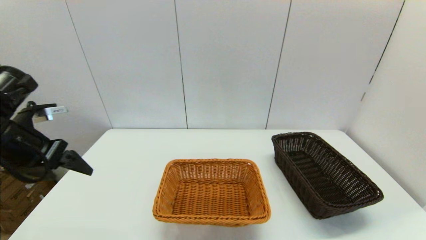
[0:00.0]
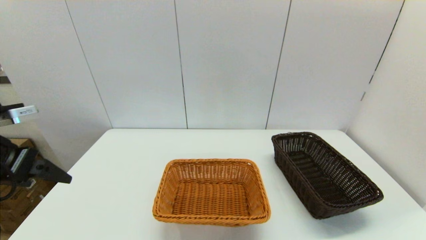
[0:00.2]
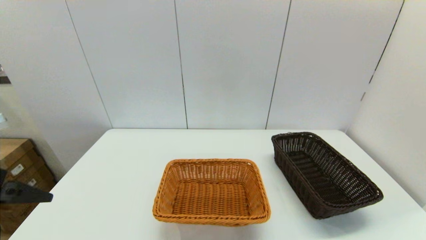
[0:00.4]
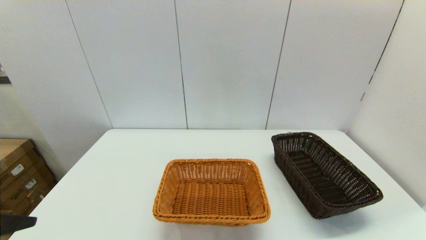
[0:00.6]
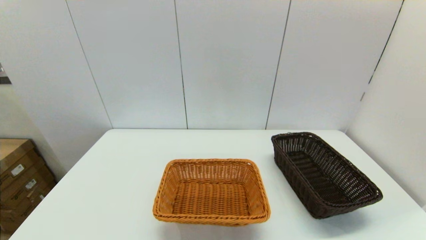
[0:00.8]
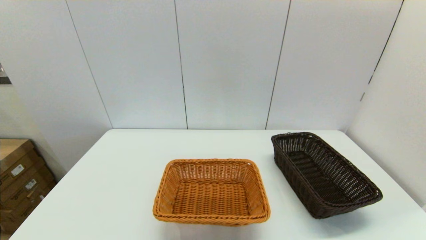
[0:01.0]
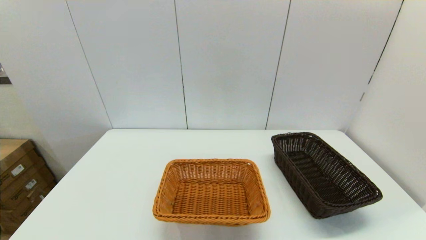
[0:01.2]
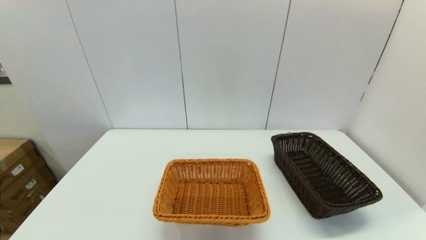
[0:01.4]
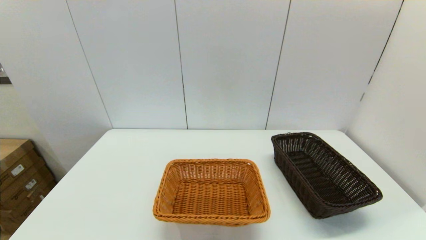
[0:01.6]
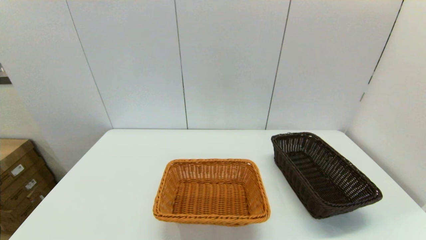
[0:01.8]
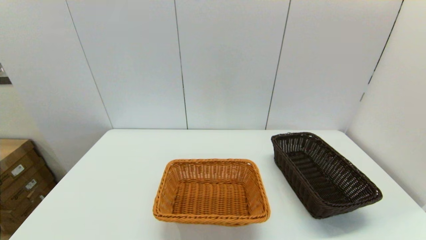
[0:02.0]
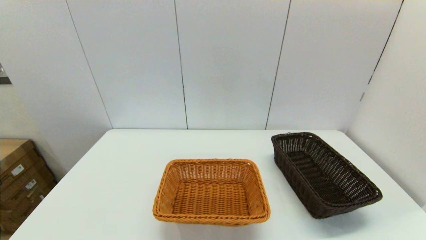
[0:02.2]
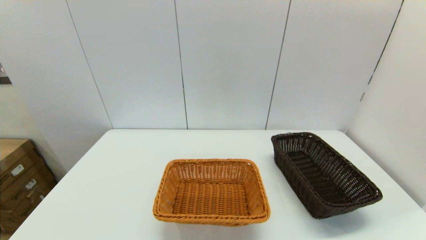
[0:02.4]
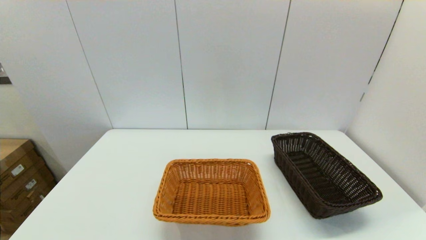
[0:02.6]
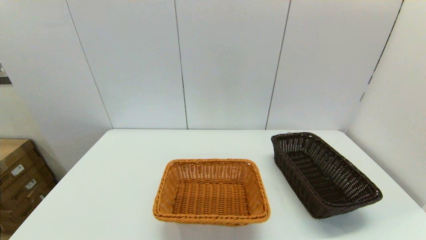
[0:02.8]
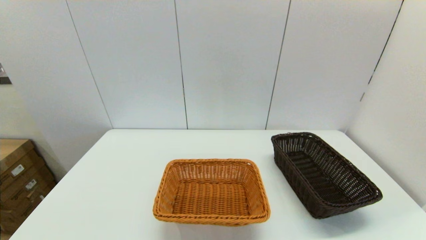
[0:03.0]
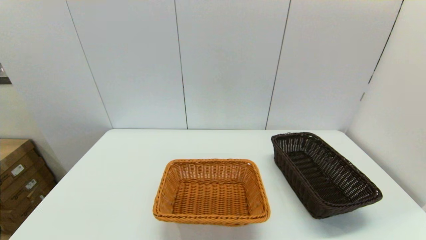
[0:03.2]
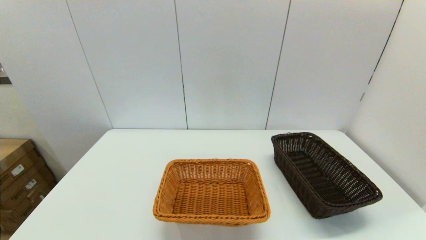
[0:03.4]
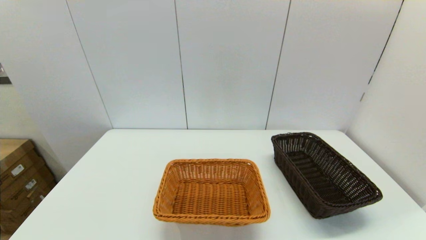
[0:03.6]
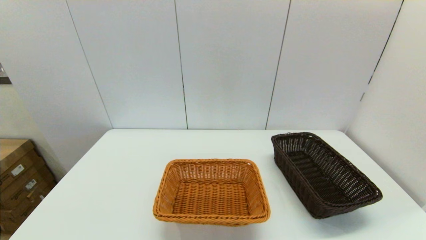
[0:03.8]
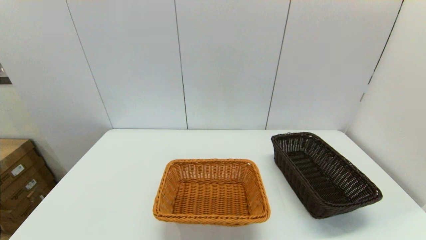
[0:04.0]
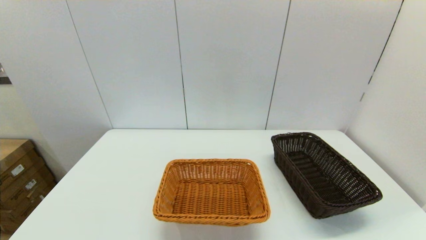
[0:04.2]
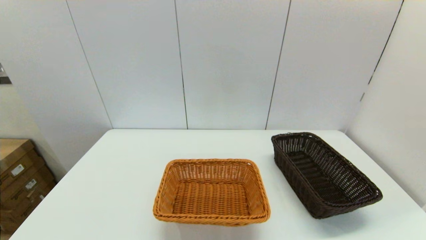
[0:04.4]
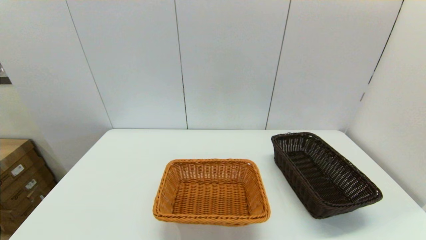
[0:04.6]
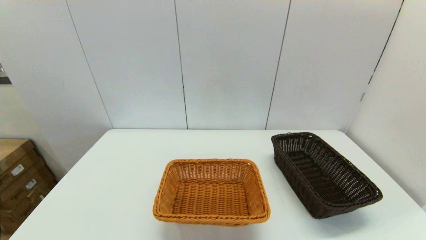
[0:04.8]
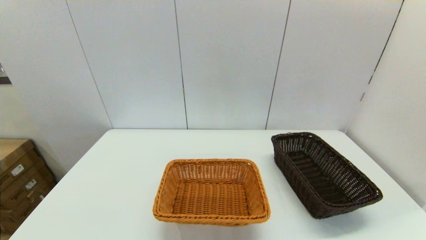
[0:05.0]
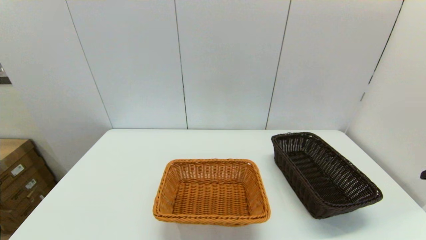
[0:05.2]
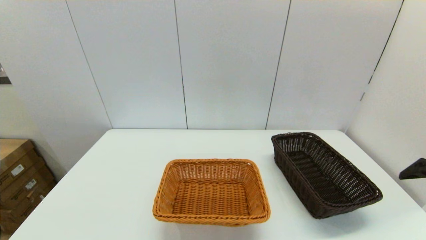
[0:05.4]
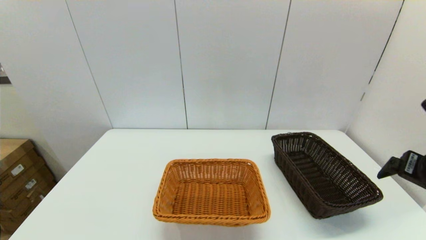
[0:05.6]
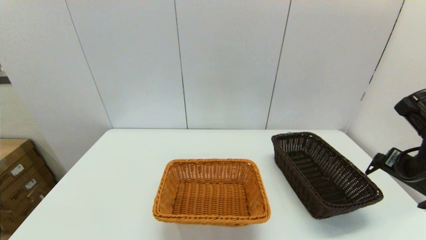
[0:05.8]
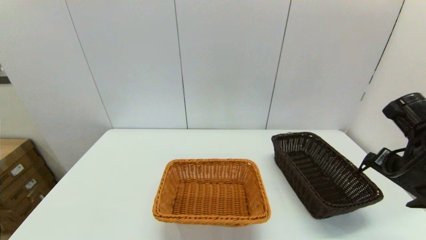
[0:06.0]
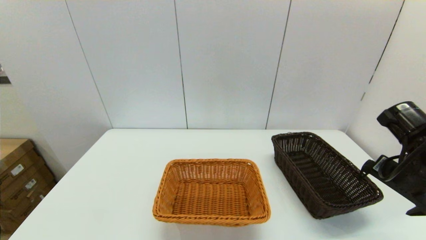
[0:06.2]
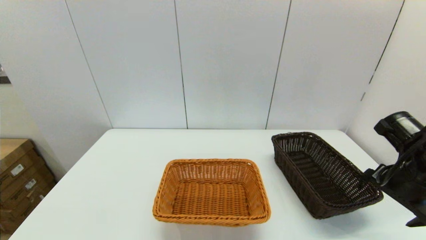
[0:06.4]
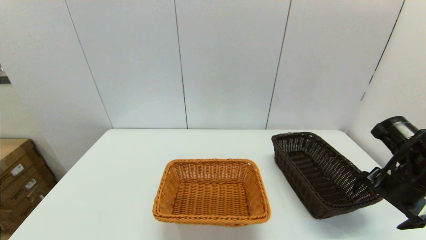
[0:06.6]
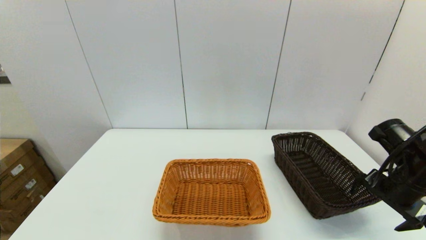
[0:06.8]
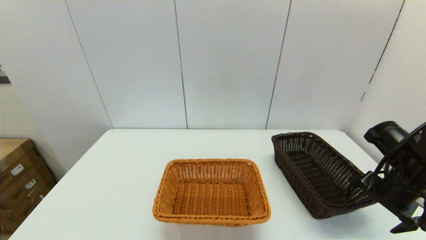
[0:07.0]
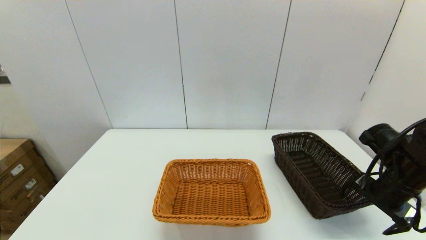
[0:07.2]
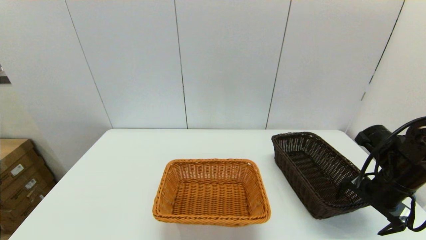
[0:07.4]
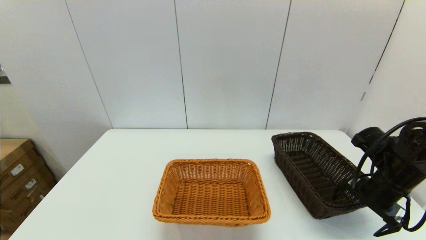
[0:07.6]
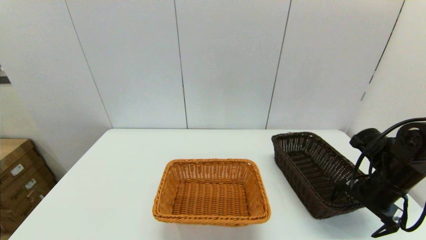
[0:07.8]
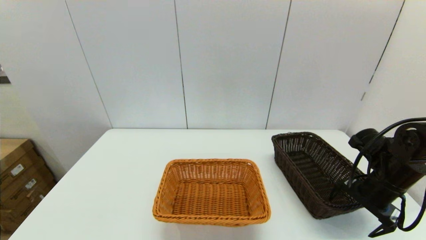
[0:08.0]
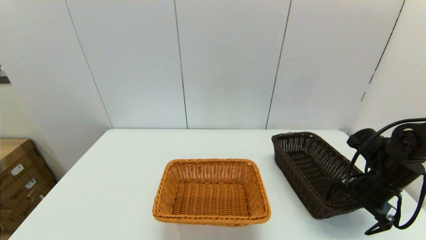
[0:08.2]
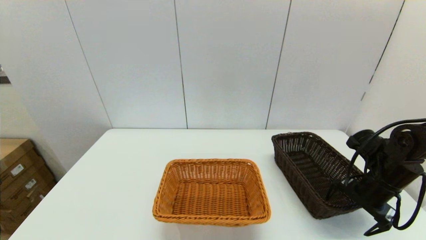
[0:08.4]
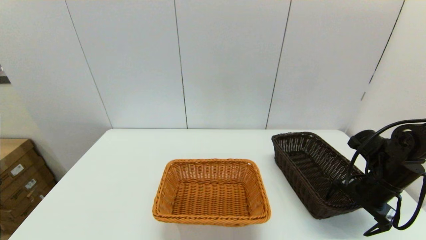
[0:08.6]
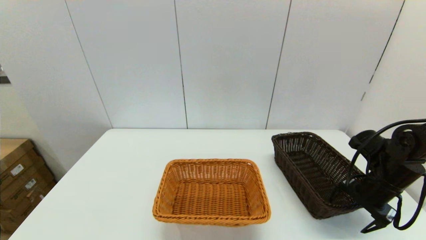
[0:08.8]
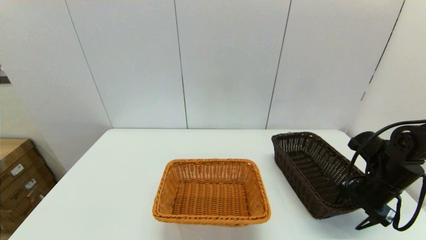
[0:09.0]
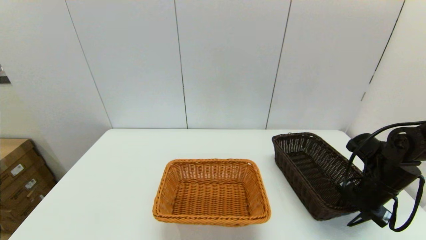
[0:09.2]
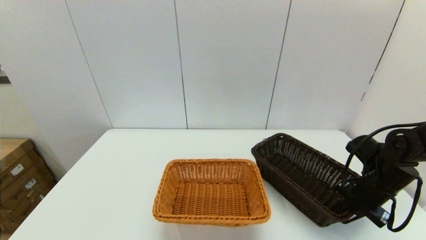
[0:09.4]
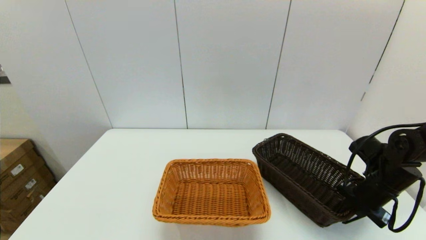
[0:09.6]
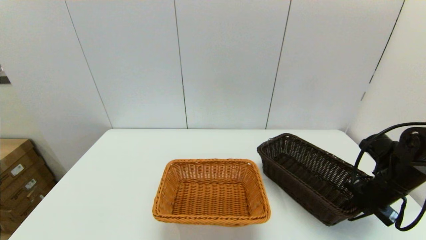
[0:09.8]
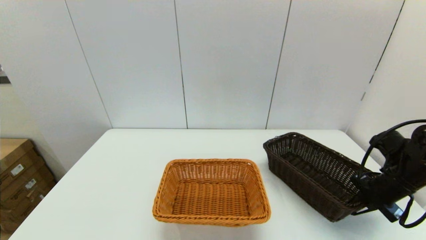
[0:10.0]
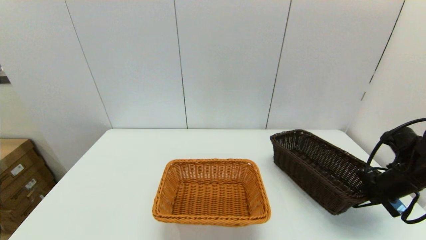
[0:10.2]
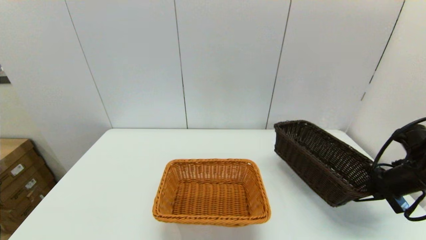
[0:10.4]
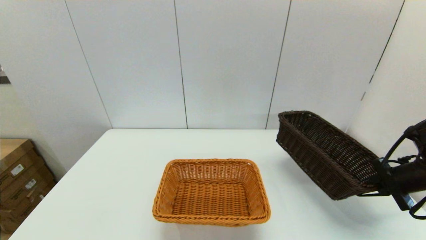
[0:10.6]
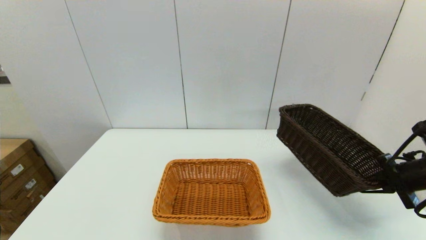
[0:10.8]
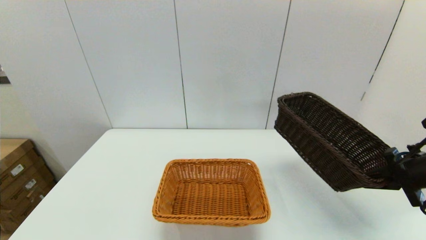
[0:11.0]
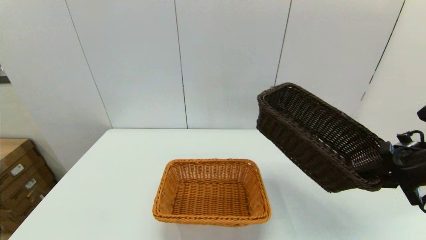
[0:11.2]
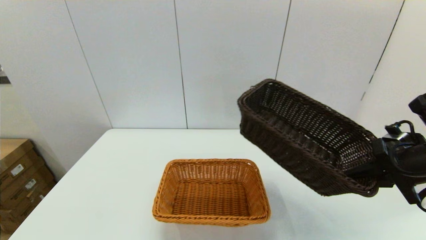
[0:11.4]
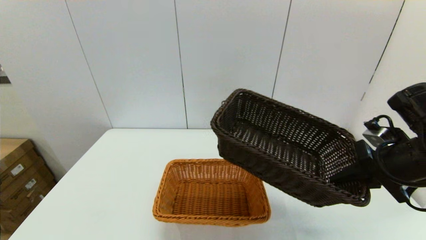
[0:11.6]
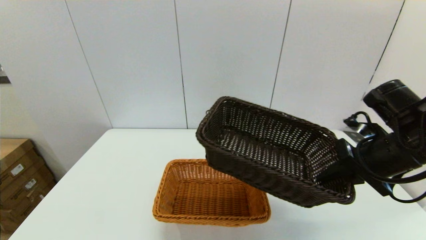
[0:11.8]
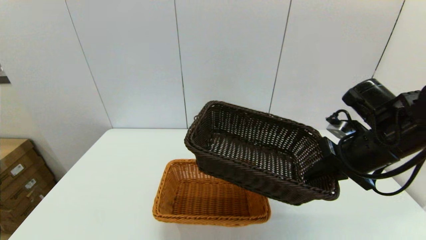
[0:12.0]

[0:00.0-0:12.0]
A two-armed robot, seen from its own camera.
Task of the whole recording: stack a basket on top of another basket.
Step, 0:00.0 to 0:09.8: Grasp the dark basket with the right gripper.
0:00.0 to 0:01.6: The left gripper goes some 25 cm backward.
0:04.4 to 0:06.0: The right gripper shifts about 20 cm forward.
0:06.0 to 0:07.6: The right gripper heads downward, covering roughly 10 cm.
0:07.6 to 0:09.0: The right gripper closes up.
0:09.0 to 0:10.4: The right gripper travels to the right by roughly 5 cm, and closes up.
0:10.4 to 0:12.0: The right gripper moves to the left and upward, about 15 cm.

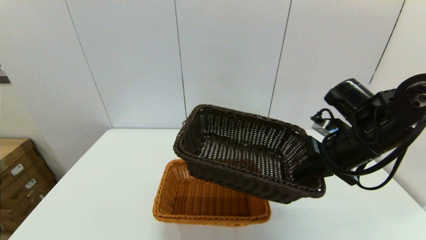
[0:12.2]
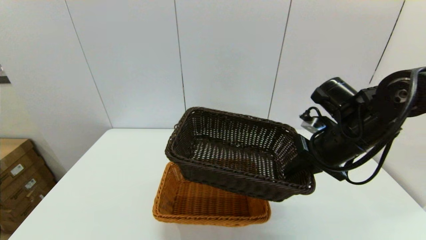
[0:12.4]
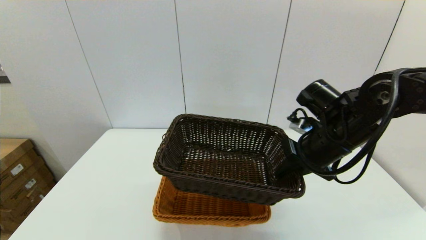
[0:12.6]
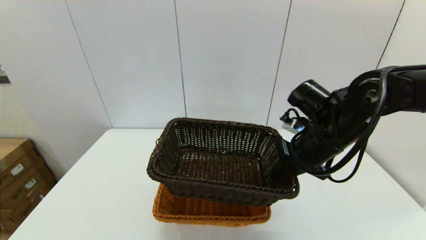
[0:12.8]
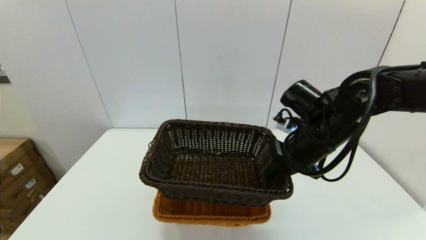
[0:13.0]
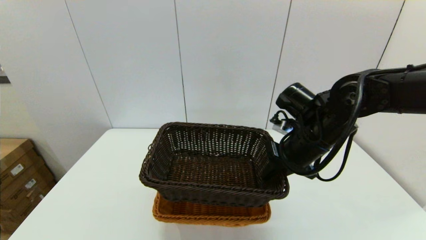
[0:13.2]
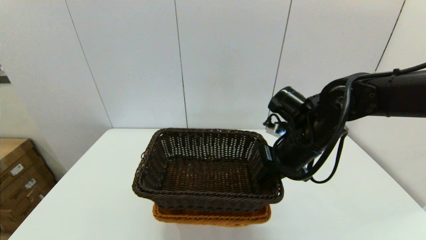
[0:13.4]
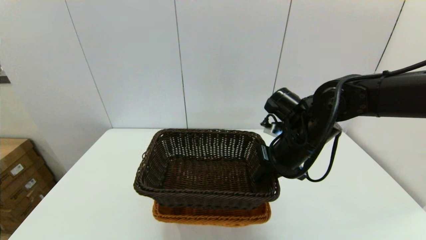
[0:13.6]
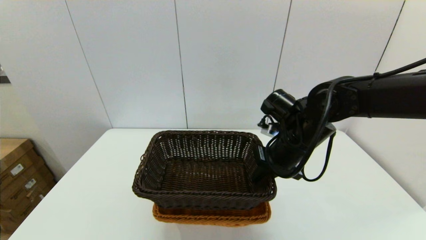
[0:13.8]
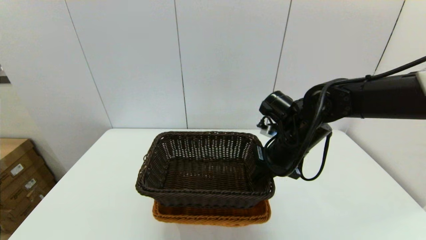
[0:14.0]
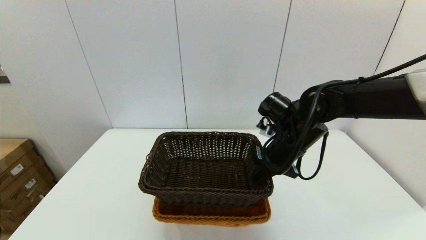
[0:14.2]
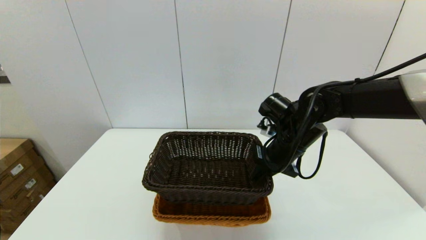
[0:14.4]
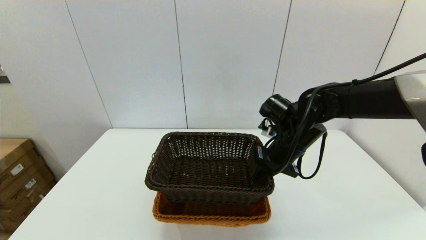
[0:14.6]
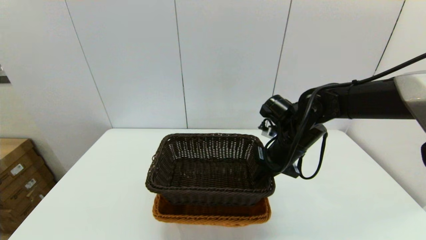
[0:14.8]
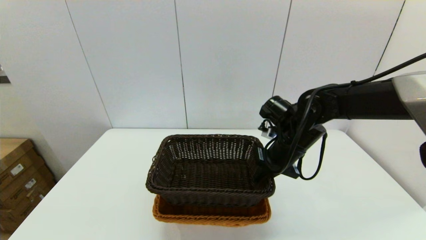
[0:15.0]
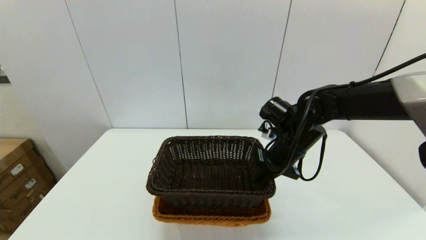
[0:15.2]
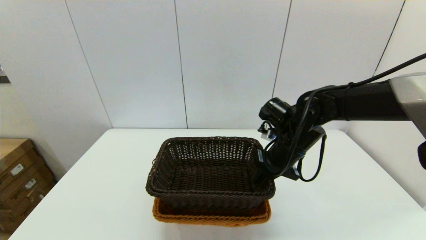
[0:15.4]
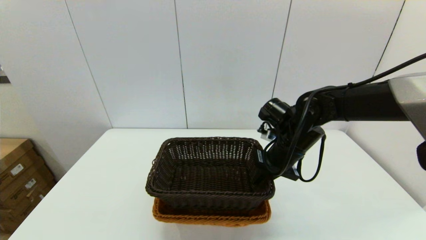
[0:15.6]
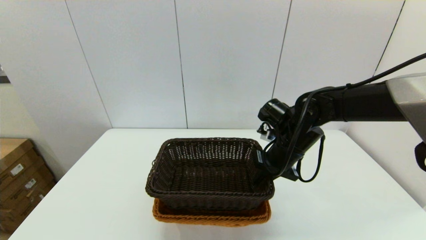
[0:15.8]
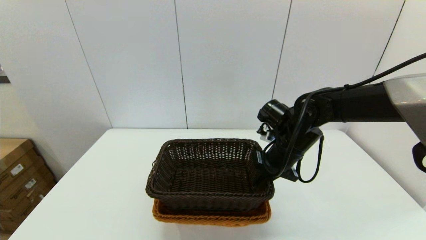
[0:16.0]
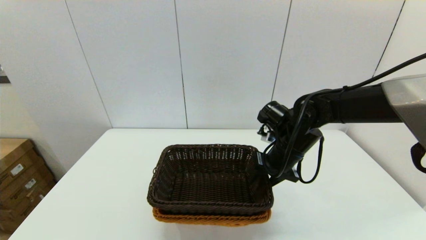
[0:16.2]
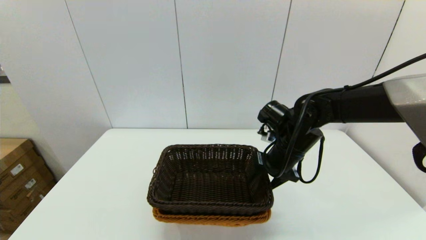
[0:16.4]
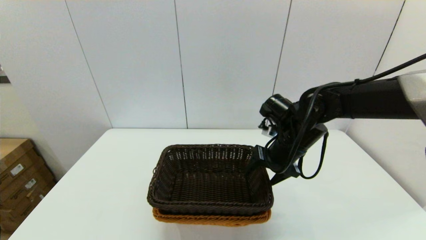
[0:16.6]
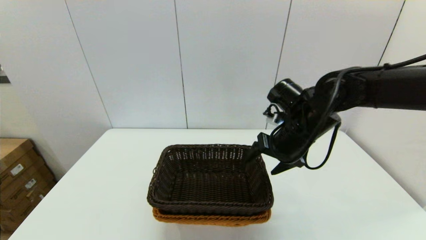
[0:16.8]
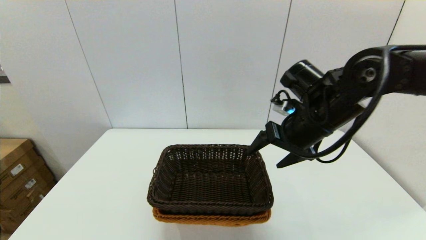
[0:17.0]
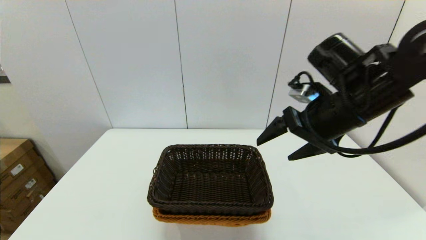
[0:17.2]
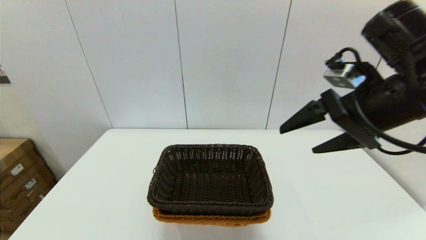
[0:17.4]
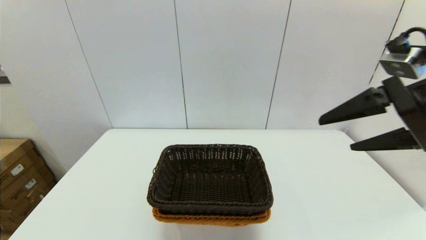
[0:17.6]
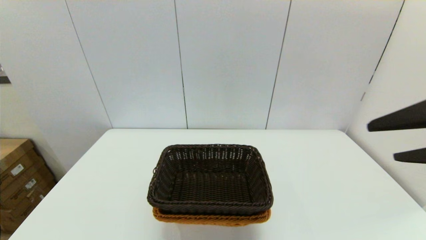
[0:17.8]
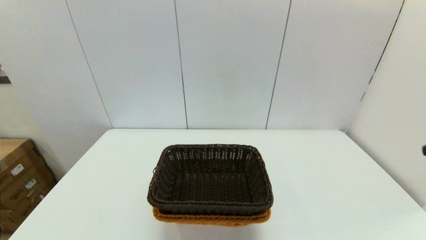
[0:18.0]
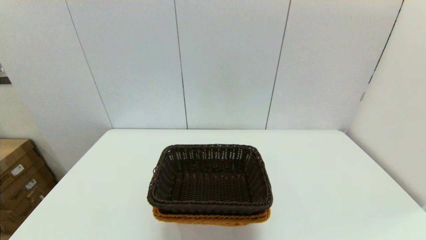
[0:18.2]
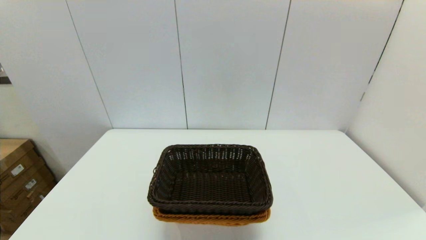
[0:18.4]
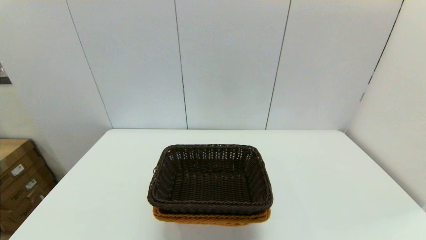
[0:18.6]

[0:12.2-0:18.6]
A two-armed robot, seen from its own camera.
Task of the whole recording: stack a basket on top of another basket.
Step, 0:12.2 to 0:16.8: Place the dark basket into the light color basket with the right gripper.
0:12.2 to 0:13.8: The right gripper shifts roughly 10 cm to the left.
0:13.8 to 0:15.4: There are only small adjustments of the grippers.
0:15.4 to 0:17.0: The right gripper goes some 10 cm upward, and opens up.
0:17.0 to 0:18.6: The right gripper goes about 40 cm backward and to the right.
